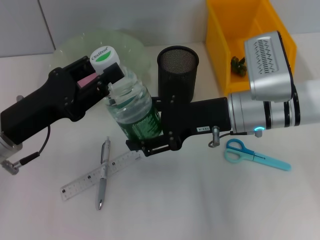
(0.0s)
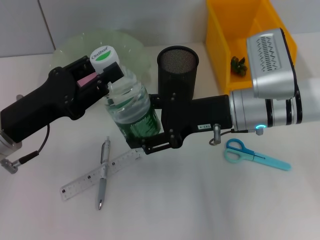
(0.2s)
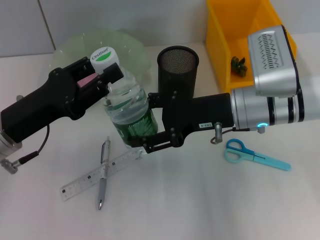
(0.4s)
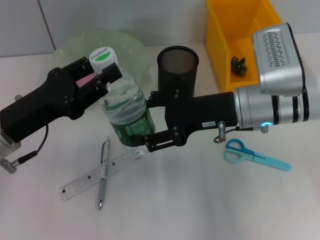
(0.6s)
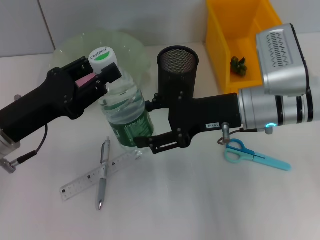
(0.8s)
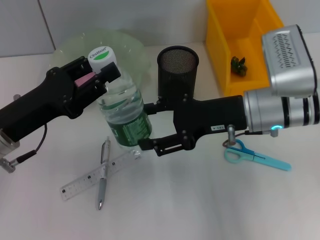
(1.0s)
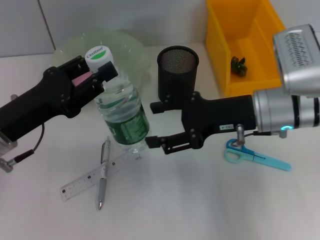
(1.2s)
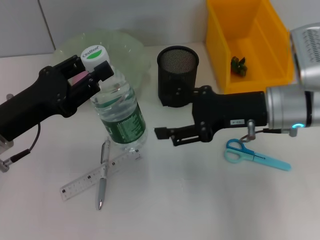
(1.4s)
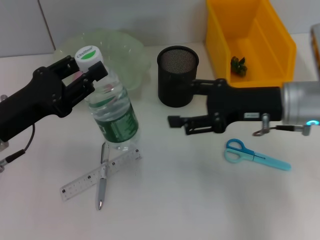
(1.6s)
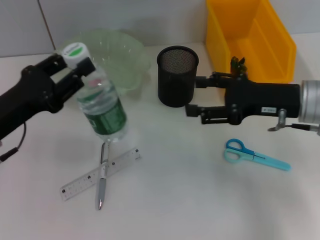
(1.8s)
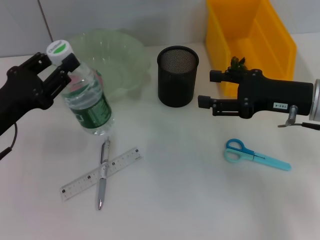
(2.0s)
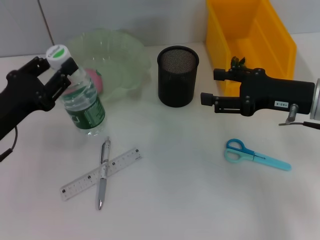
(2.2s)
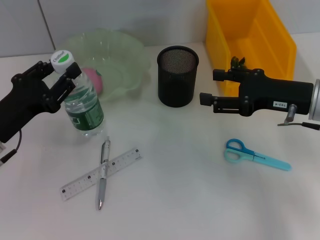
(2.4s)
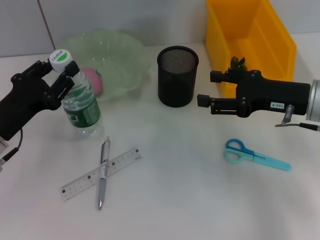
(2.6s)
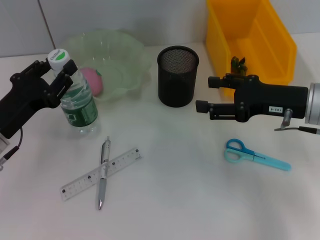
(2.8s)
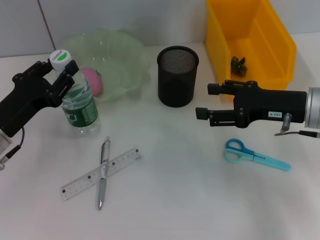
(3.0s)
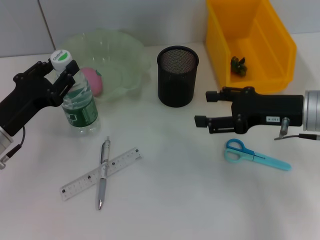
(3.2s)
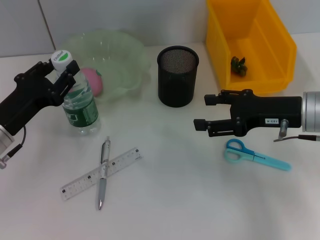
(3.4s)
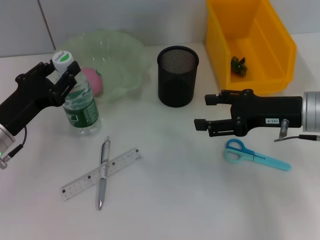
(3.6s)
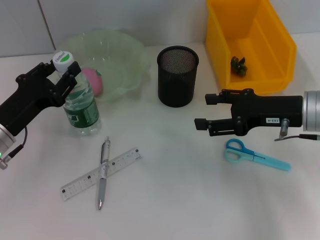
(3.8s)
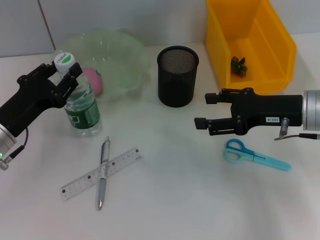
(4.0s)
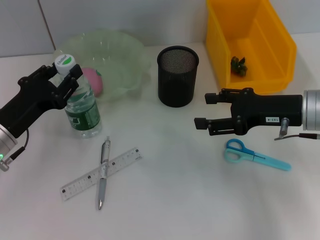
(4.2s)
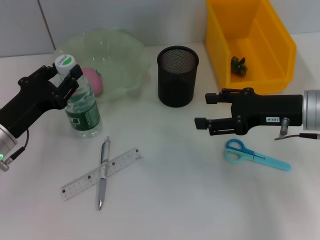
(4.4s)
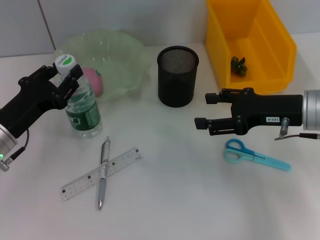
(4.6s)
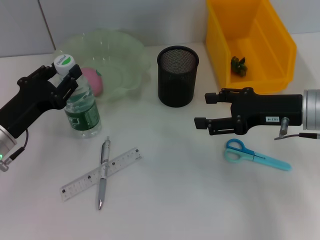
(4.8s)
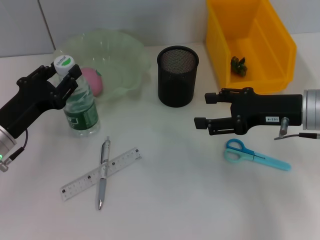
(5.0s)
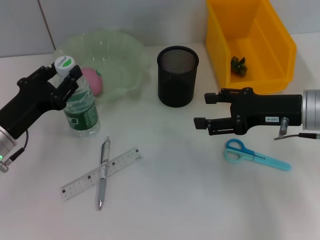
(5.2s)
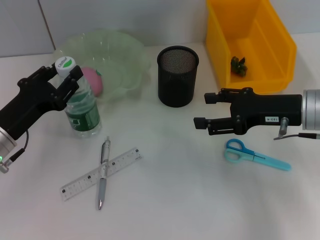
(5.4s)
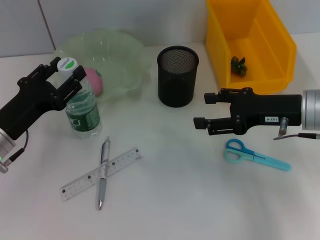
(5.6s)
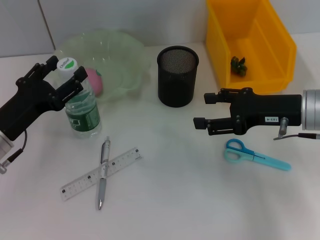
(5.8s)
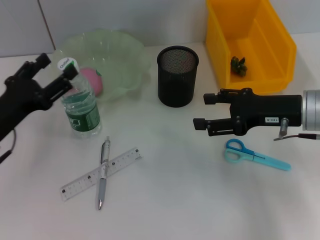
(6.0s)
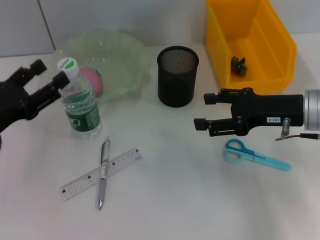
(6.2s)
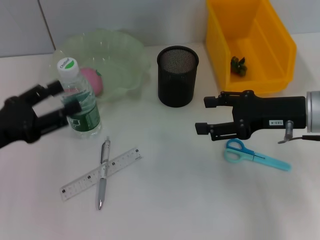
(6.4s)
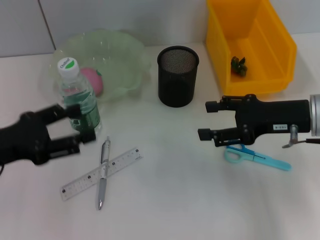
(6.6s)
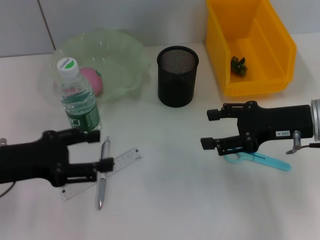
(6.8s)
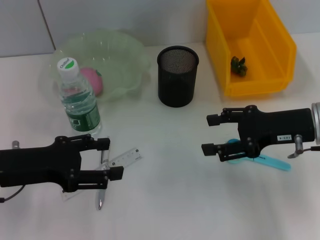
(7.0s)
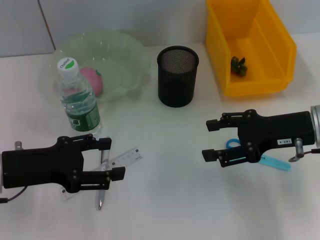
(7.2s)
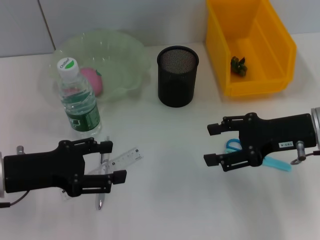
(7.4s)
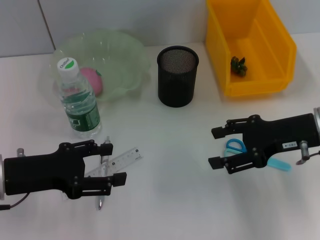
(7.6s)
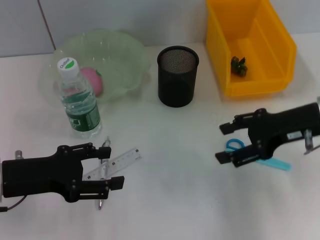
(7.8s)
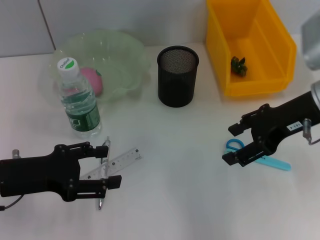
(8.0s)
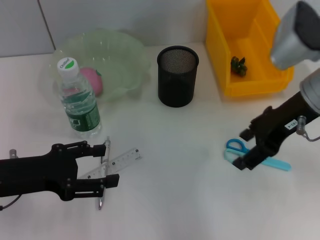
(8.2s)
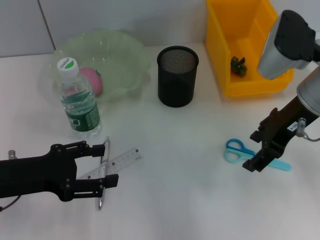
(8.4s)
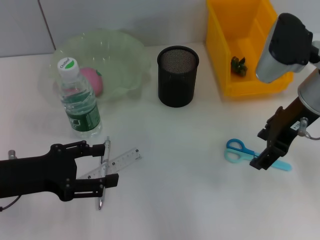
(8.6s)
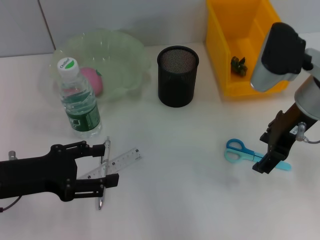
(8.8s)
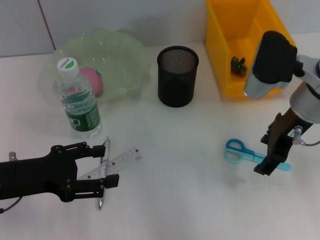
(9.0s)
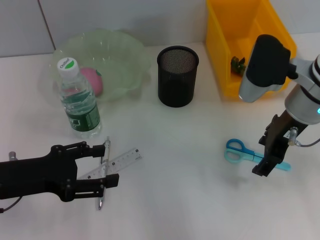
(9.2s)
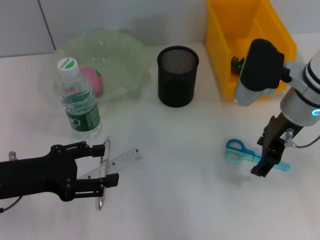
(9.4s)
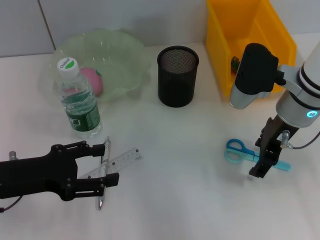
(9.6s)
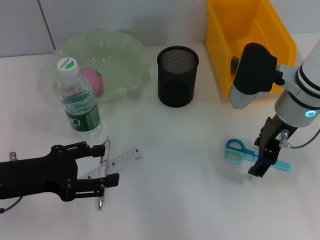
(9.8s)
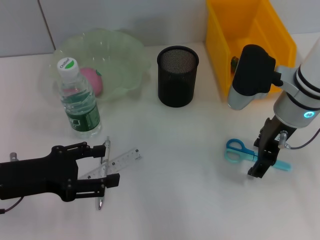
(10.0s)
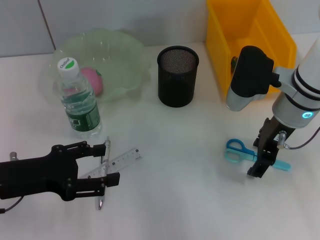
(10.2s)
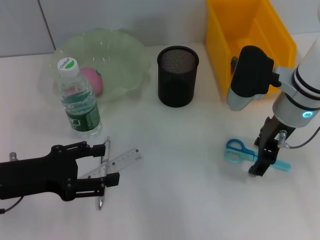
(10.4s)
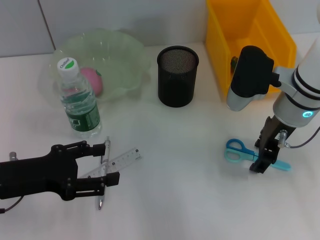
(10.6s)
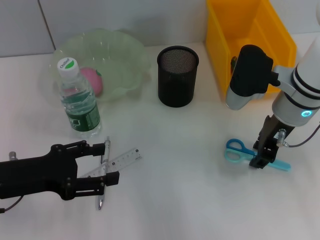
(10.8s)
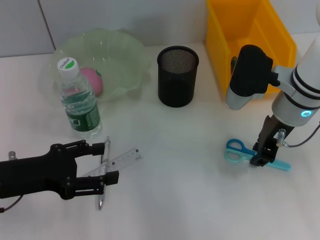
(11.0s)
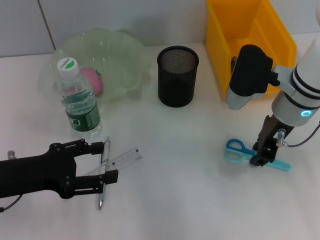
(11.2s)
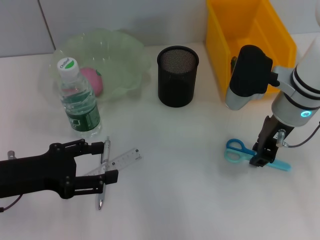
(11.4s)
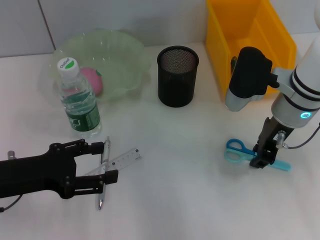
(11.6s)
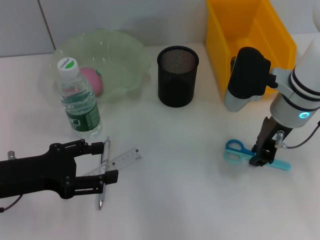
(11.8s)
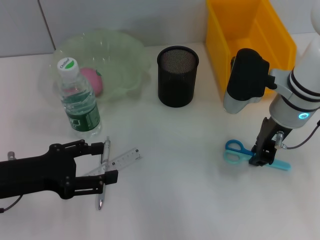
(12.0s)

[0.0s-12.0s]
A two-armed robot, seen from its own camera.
Step, 1.2s to 5.4s: Place the water bottle on the table with the left hand.
Step, 5.6s to 11.8s: Grab the blue scissors with the right hand.
0.0s to 1.6s: The right gripper goes some 5 cm to the right.
3.0s to 4.4s: Both grippers stay put.
4.4s to 6.0s: The left gripper opens its fingers.
7.6s to 9.0s: The right gripper is displaced to the left by roughly 5 cm.
9.0s to 10.4s: The grippers stay close to where they were, moving slightly.
10.4s to 12.0s: The right gripper closes.

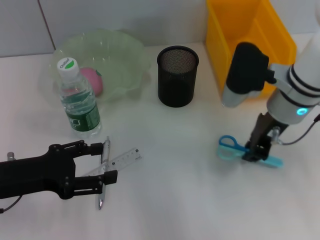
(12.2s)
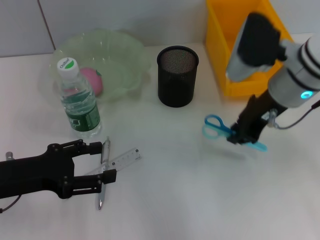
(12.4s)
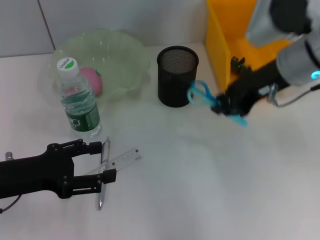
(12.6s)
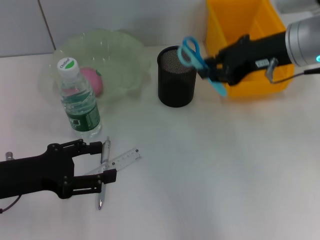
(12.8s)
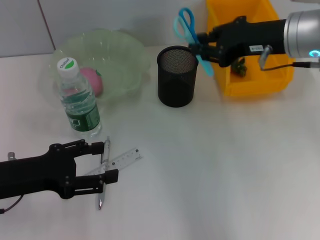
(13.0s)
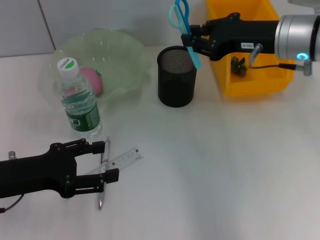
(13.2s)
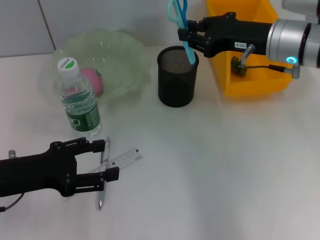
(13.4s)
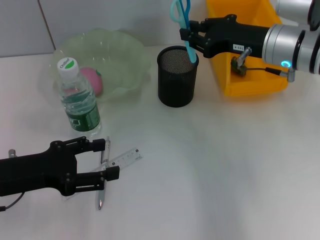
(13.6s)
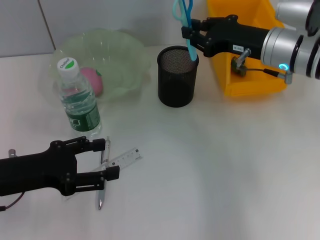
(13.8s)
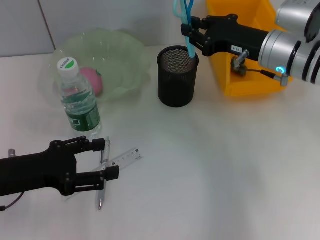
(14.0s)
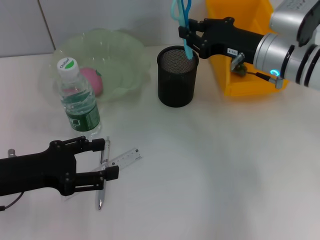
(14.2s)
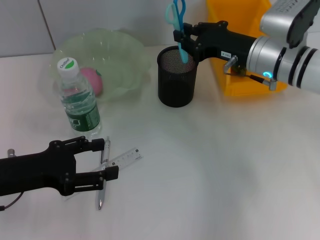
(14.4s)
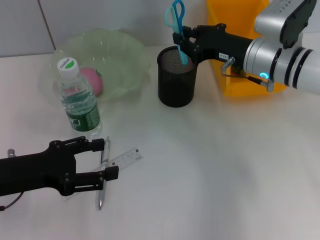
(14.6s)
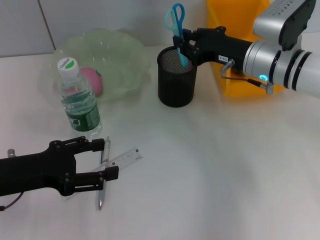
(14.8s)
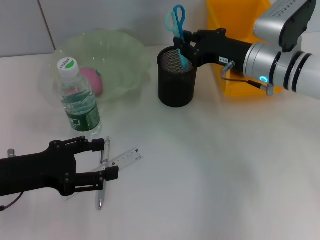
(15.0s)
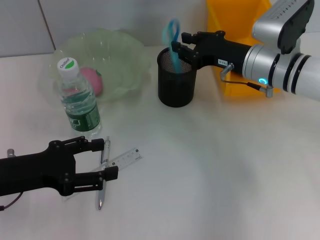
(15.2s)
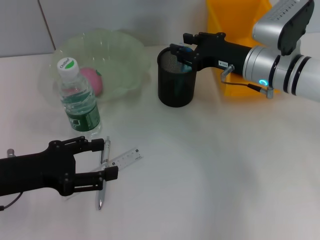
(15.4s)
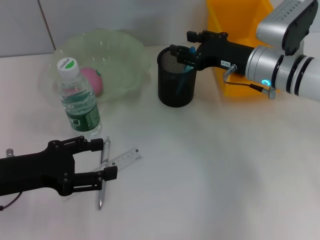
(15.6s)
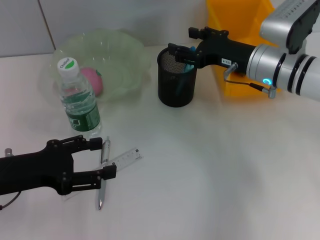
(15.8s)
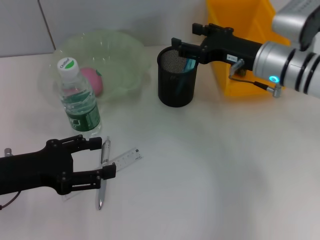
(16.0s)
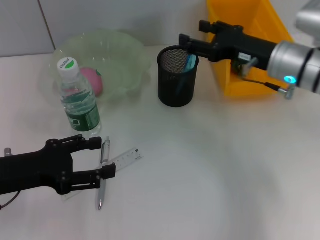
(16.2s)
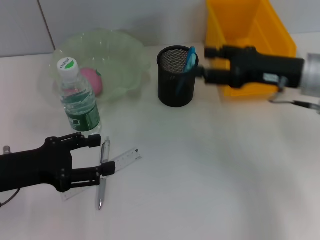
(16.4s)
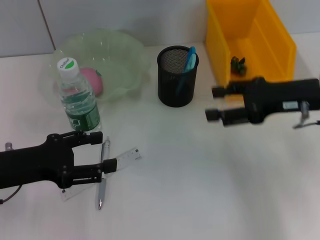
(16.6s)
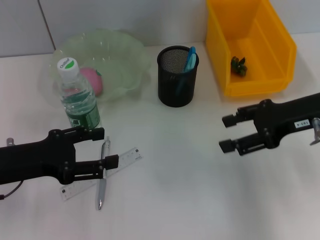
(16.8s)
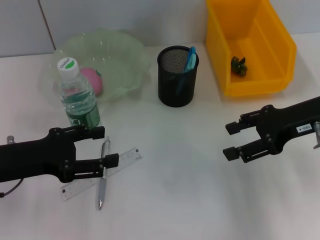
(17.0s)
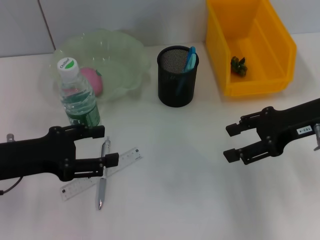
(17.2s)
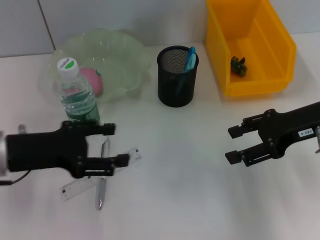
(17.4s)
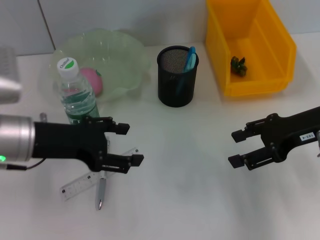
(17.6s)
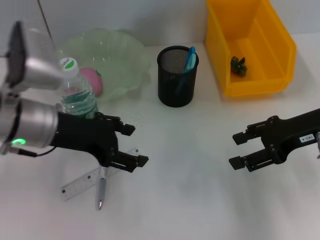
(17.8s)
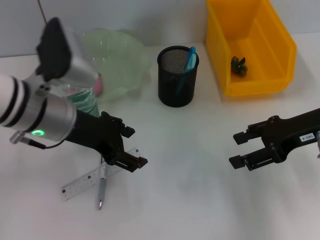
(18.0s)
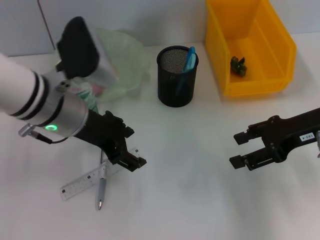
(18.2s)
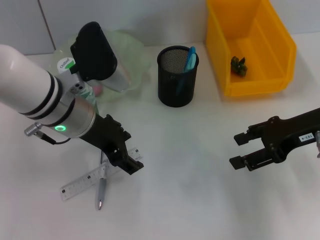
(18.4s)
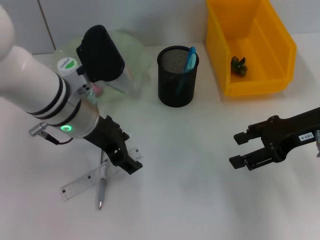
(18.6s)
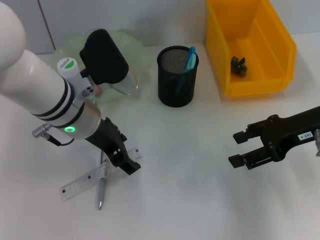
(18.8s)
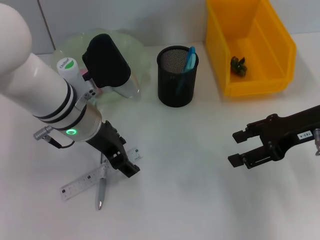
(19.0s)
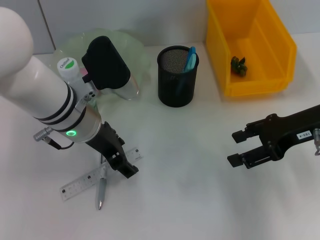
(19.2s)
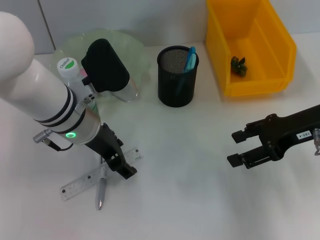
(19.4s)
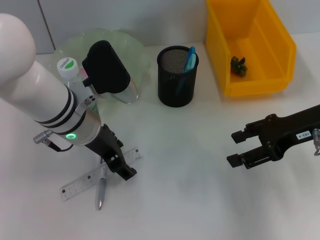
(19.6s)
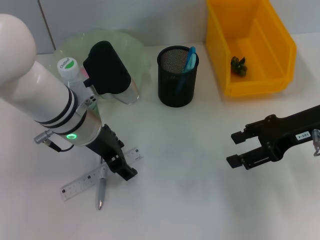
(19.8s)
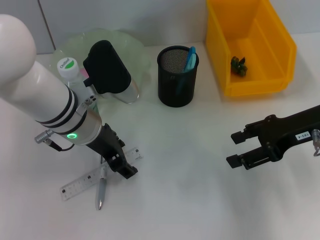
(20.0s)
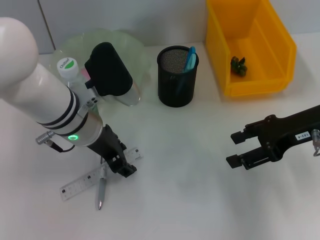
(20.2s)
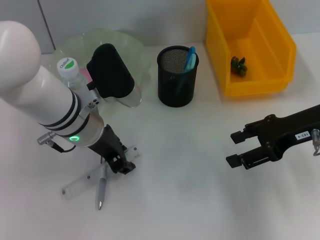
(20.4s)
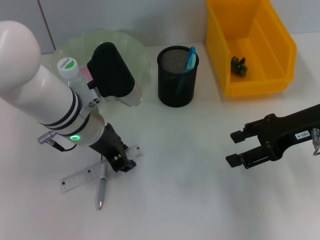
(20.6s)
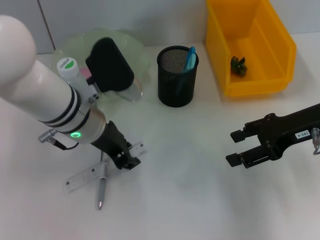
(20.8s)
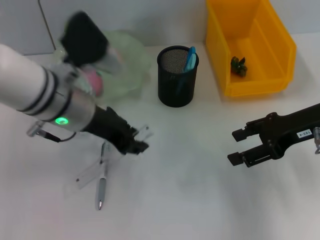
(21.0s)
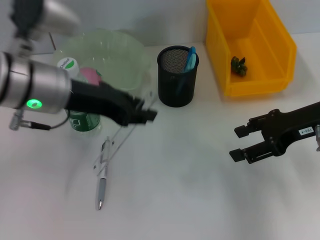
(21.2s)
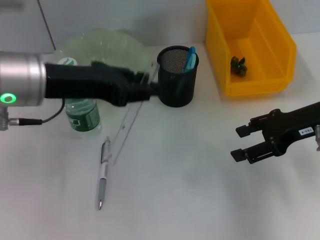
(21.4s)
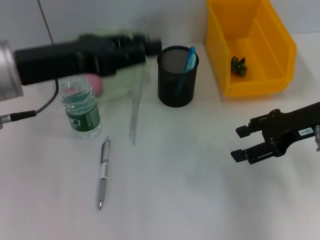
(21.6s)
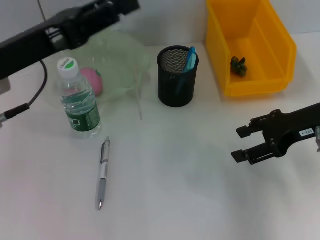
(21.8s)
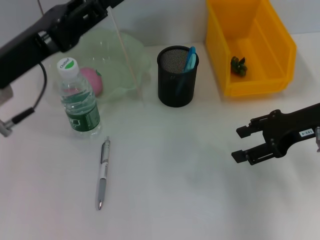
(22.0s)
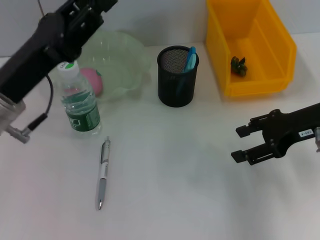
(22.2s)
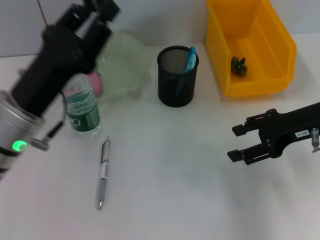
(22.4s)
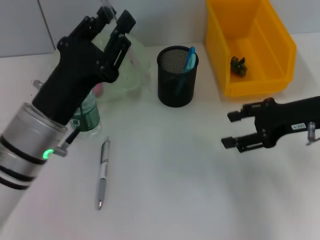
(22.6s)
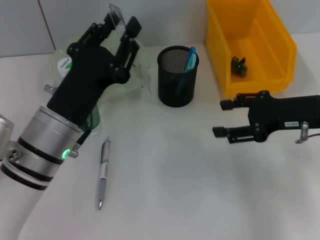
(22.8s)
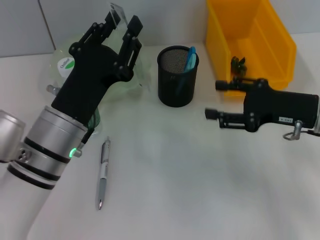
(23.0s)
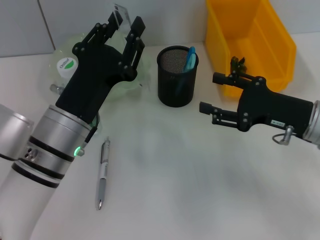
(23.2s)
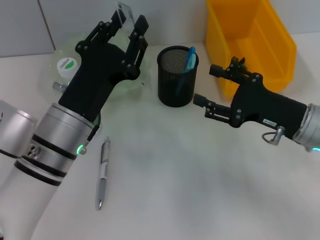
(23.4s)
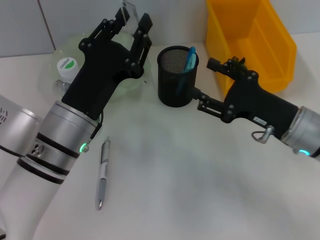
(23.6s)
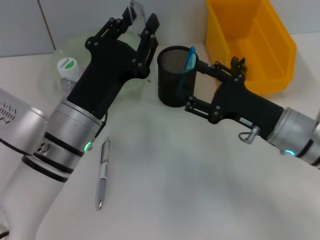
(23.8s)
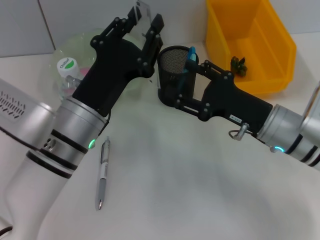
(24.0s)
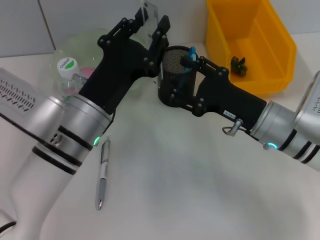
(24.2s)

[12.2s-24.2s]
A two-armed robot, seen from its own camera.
Step, 12.2s to 15.4s: Place the blue scissors into the pen holder with the right hand.
Step, 15.6s to 20.4s: Grab the ruler with the left hand.
12.2s to 13.8s: The right gripper reaches about 10 cm upward, then returns.
13.8s to 15.2s: The grippers make only small movements.
15.2s to 16.6s: The right gripper moves to the right and backward, roughly 10 cm, and opens.
16.6s to 18.2s: The left gripper moves to the right, forward and upward, about 15 cm.
18.2s to 19.8s: The grippers make only small movements.
19.8s to 21.2s: The left gripper shifts about 5 cm upward, and closes its fingers.
21.2s to 22.6s: The left gripper goes roughly 10 cm downward and backward.
22.6s to 24.2s: The left gripper travels to the right by about 5 cm. Meanwhile the right gripper travels to the left and downward by some 10 cm.
